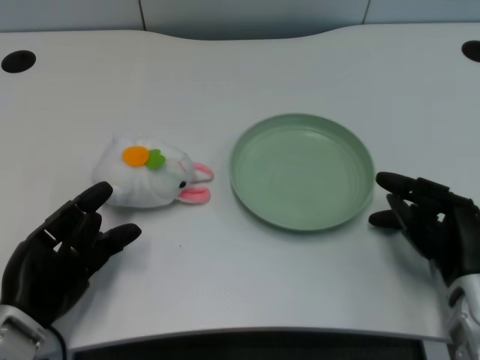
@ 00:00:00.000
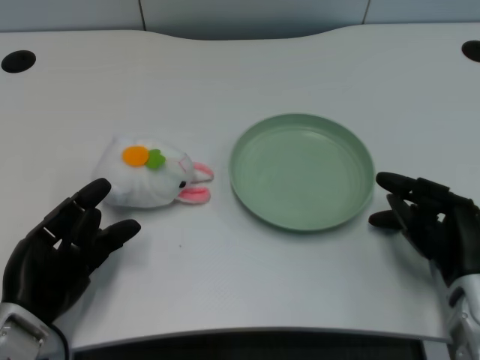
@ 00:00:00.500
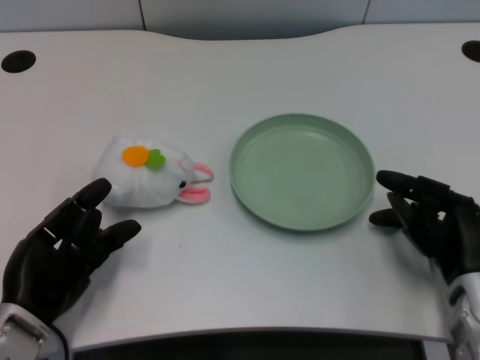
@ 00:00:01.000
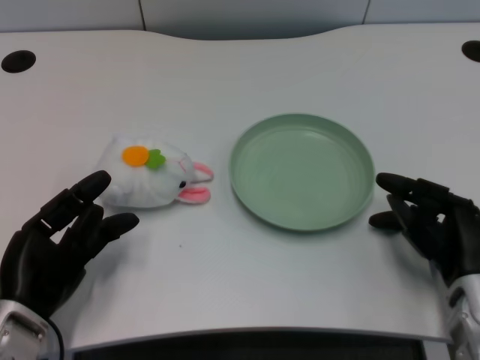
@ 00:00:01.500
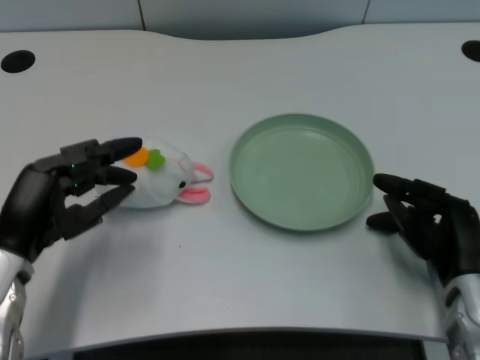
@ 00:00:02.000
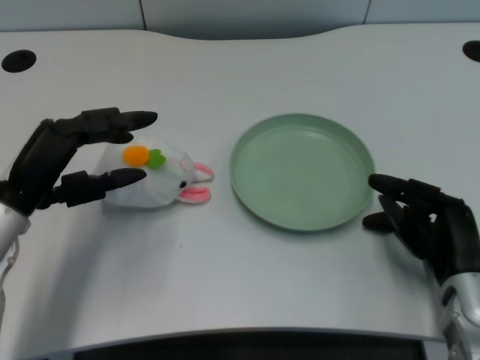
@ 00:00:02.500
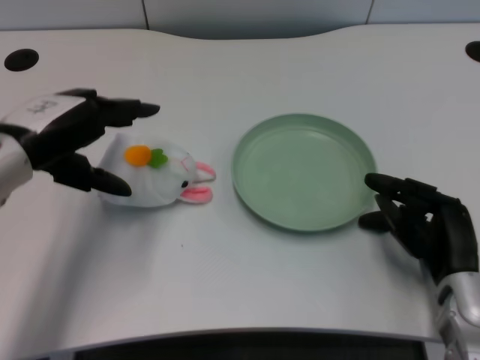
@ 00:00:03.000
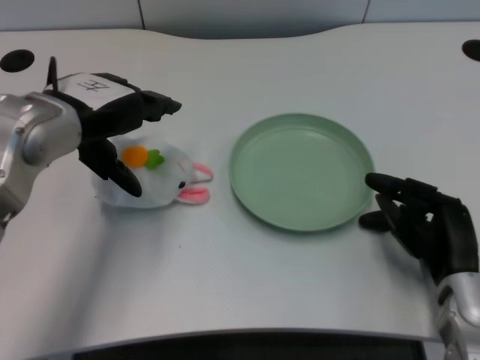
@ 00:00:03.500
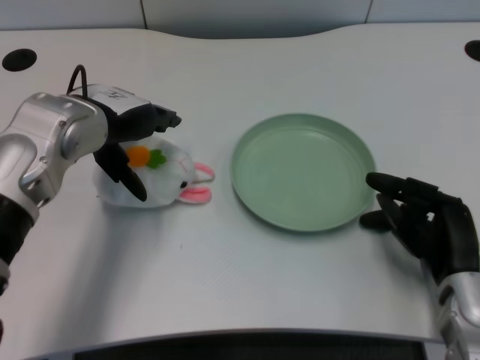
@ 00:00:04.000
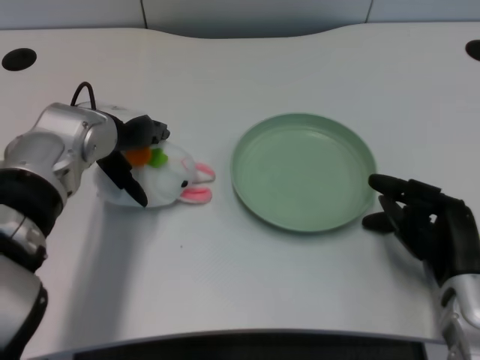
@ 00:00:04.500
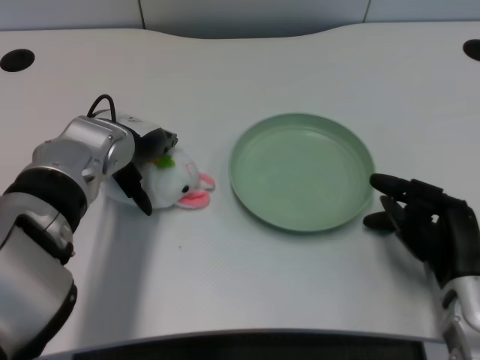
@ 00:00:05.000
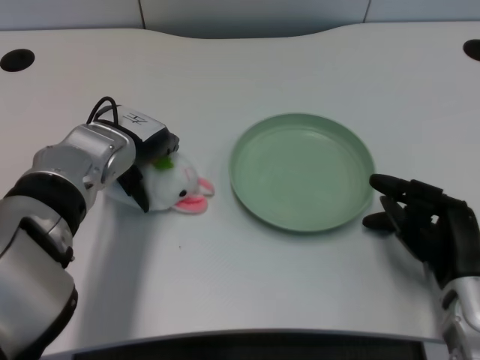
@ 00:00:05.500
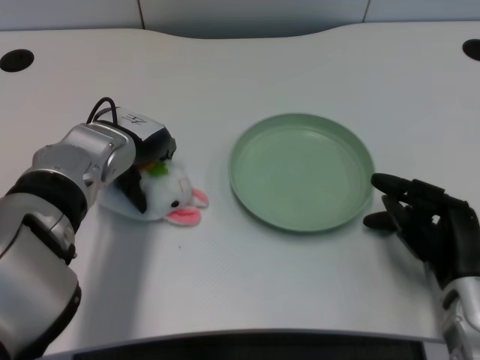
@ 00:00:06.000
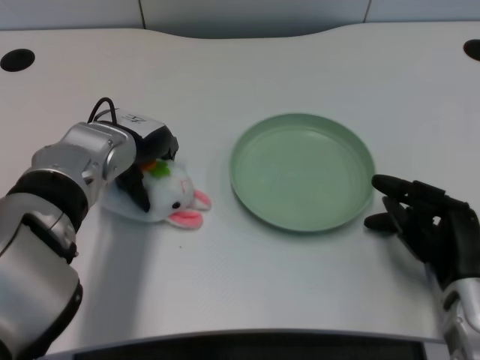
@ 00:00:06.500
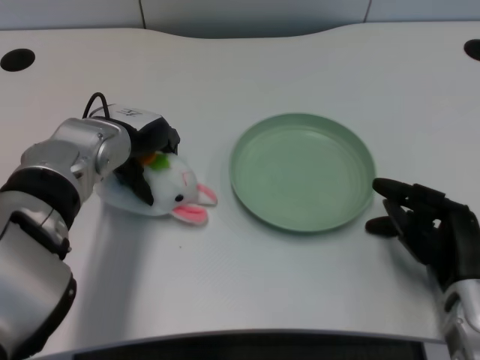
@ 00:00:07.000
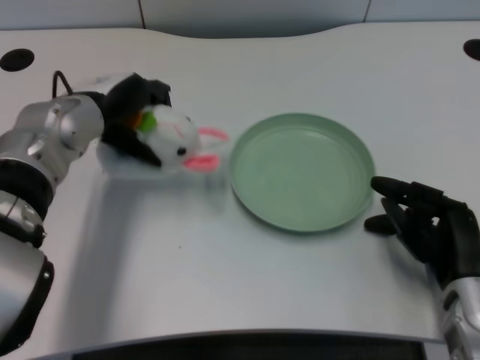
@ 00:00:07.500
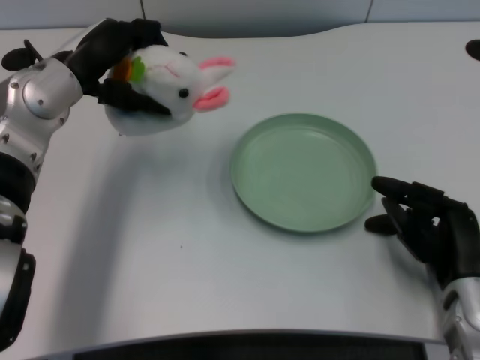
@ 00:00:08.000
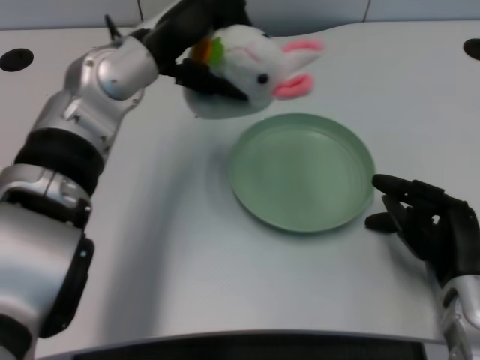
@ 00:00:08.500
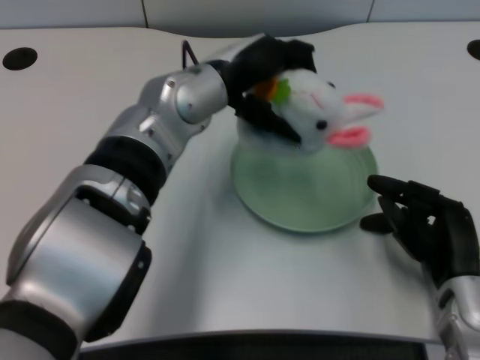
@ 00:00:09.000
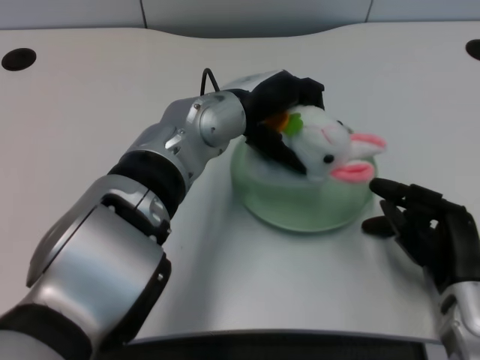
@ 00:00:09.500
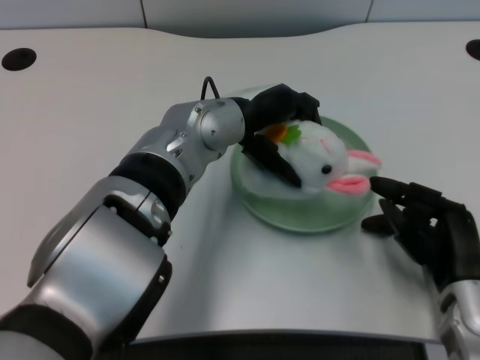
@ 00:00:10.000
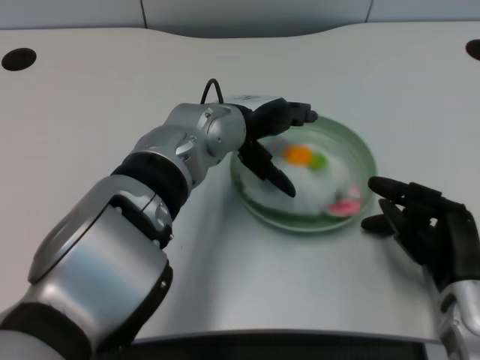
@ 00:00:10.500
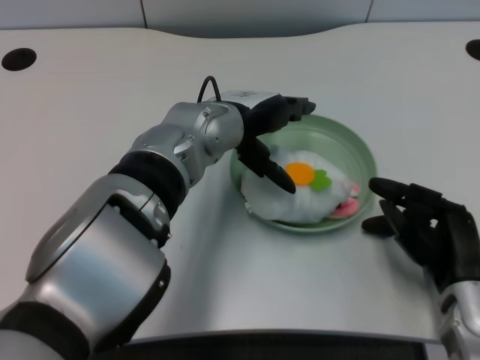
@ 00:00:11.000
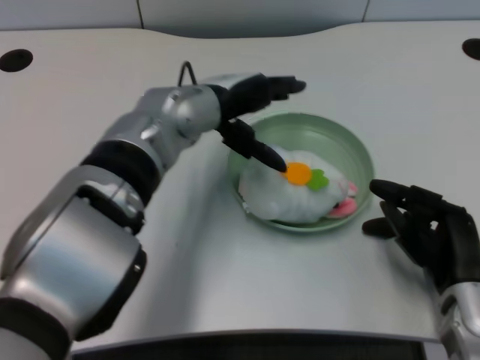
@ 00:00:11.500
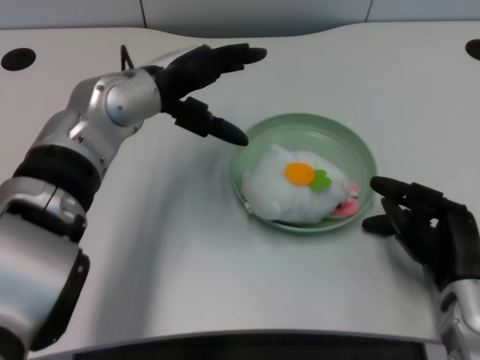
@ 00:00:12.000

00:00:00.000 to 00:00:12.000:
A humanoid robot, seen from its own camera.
Task of the whole recording: pick up the rabbit doll from the table and place it on the plate.
Step, 00:00:01.500 to 00:00:06.000: Grasp the rabbit doll with the left gripper.
Step, 00:00:06.500 to 00:00:10.500: Place the rabbit doll into the plate with the left gripper.
00:00:02.000 to 00:00:04.000: The left hand moves forward, upward and to the right, roughly 15 cm.
00:00:04.000 to 00:00:06.000: The left hand goes some 5 cm downward.
00:00:06.000 to 00:00:08.000: The left hand is displaced upward by approximately 5 cm.
00:00:08.000 to 00:00:10.000: The left hand heads to the right, covering roughly 15 cm.
00:00:10.000 to 00:00:12.000: The left hand heads to the left, covering approximately 10 cm.

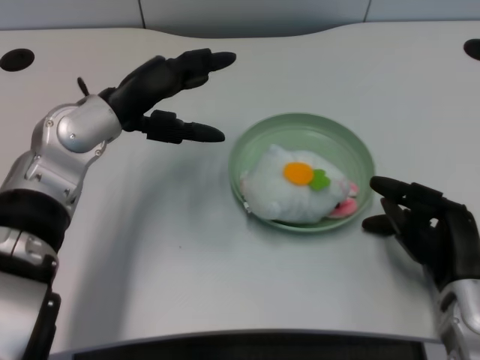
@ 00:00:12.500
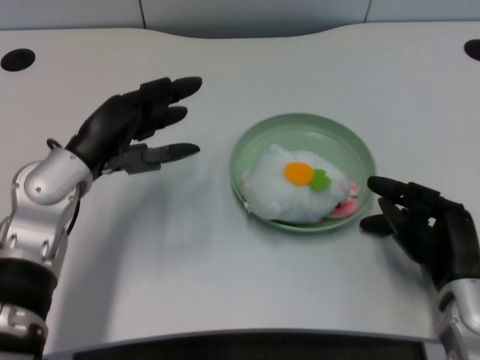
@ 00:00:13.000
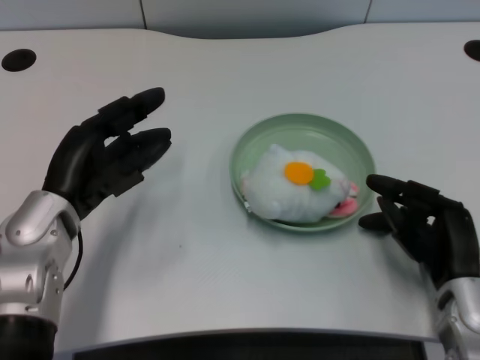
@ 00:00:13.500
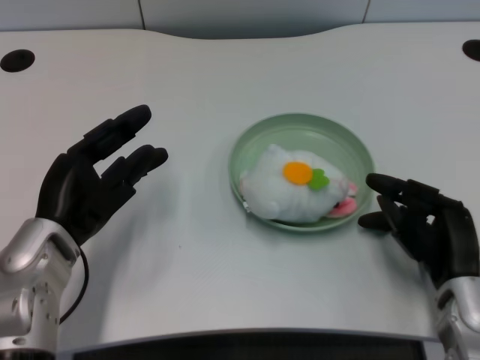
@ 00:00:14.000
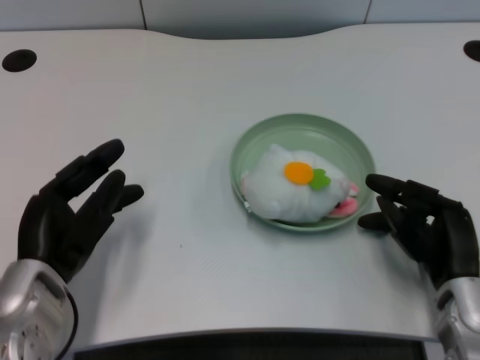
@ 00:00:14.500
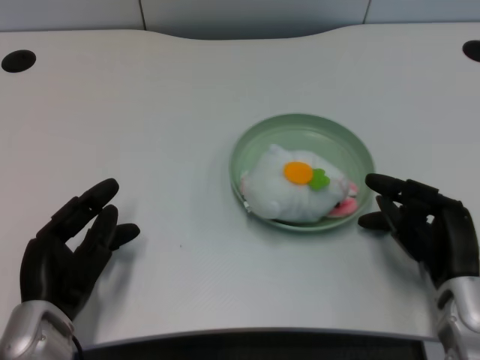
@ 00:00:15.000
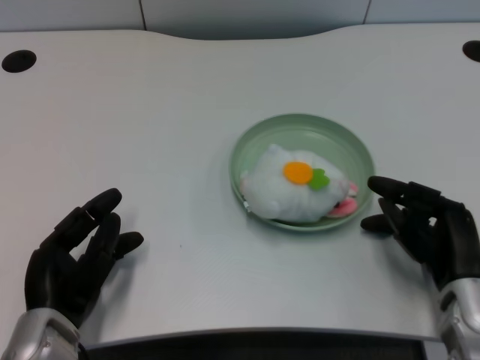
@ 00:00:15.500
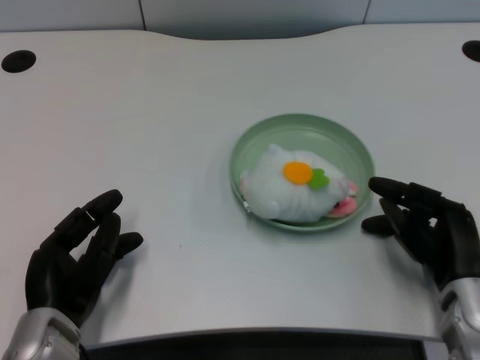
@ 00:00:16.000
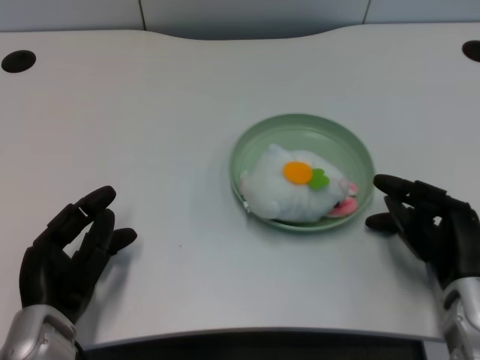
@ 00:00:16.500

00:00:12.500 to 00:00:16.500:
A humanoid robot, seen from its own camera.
Task of the whole recording: pick up the rabbit doll from the table and place it on the plate.
00:00:12.500 to 00:00:14.500: The left hand goes approximately 15 cm backward and downward.
00:00:14.500 to 00:00:16.500: The hands make only small movements.
